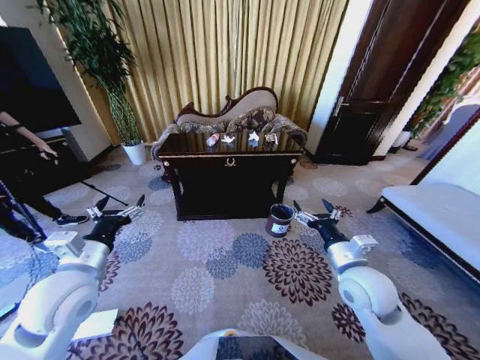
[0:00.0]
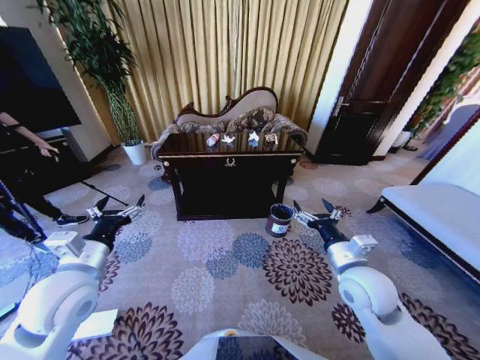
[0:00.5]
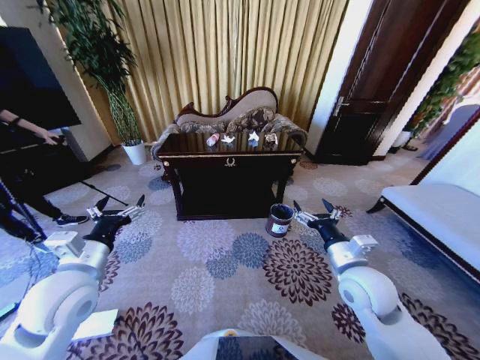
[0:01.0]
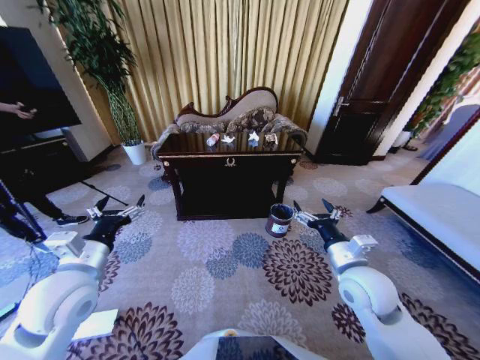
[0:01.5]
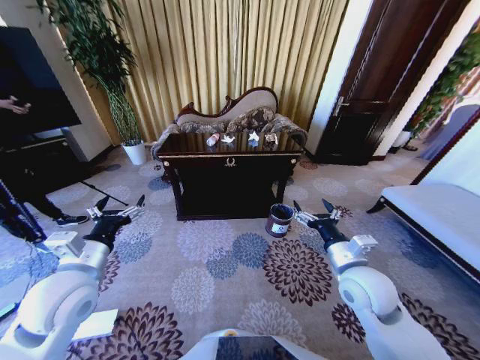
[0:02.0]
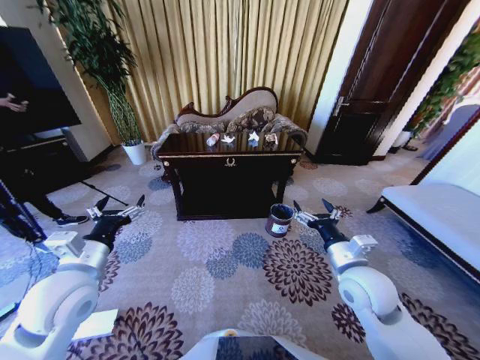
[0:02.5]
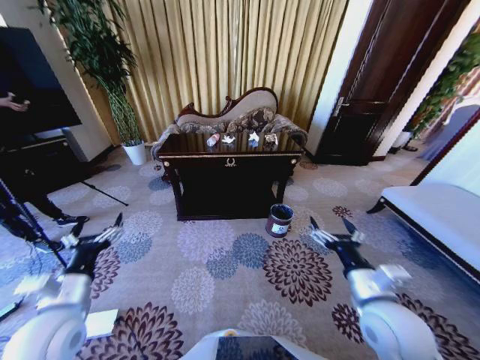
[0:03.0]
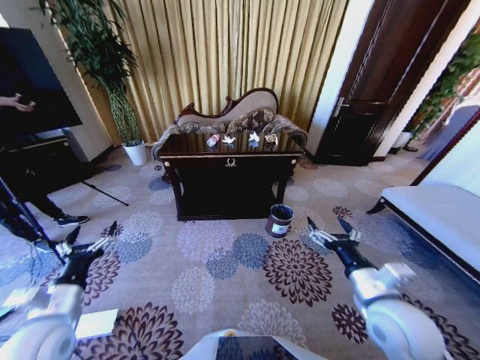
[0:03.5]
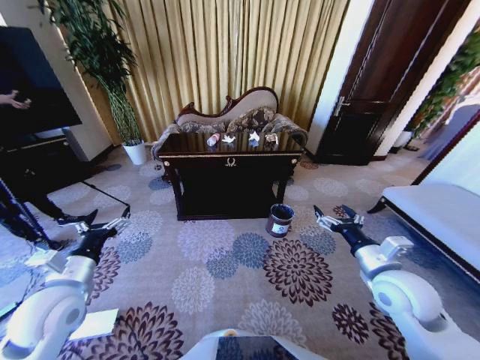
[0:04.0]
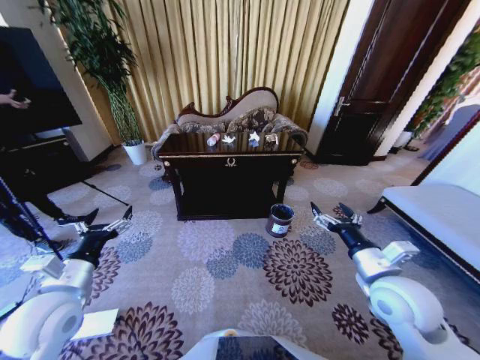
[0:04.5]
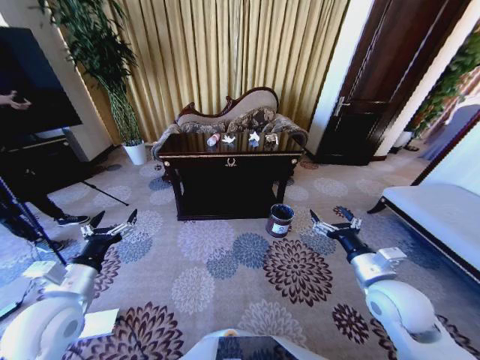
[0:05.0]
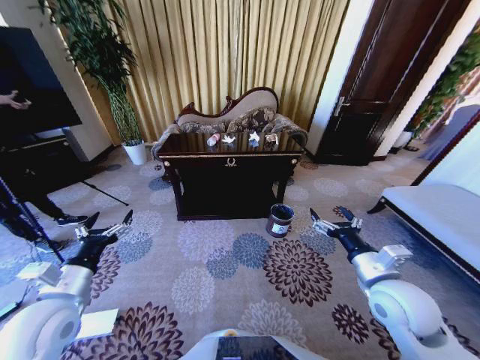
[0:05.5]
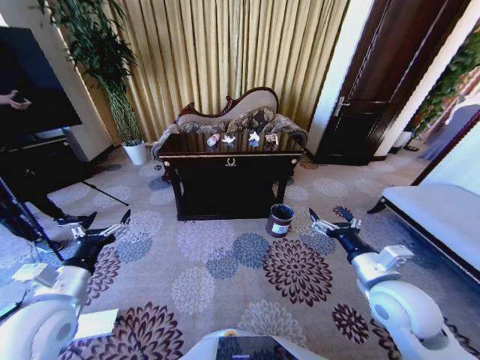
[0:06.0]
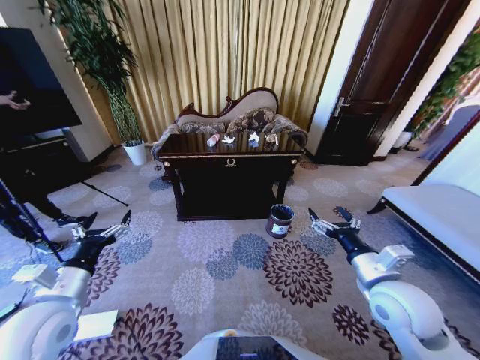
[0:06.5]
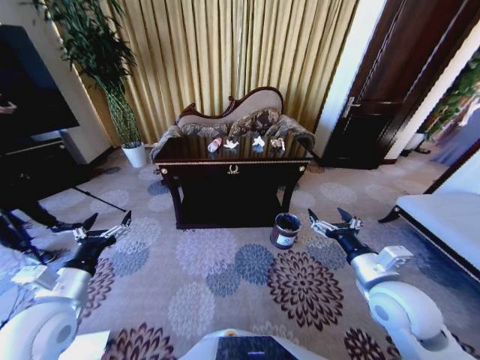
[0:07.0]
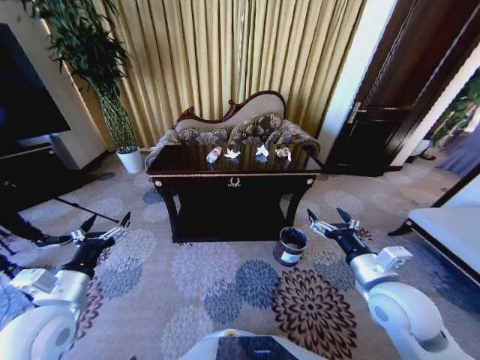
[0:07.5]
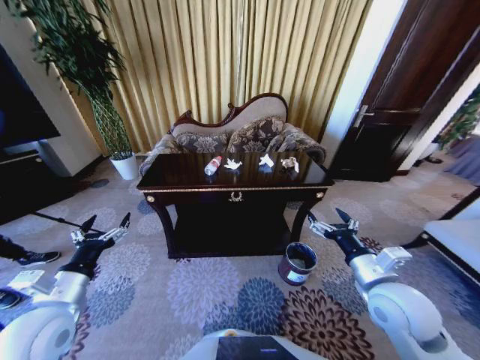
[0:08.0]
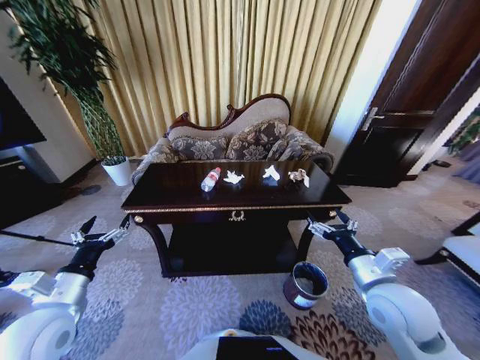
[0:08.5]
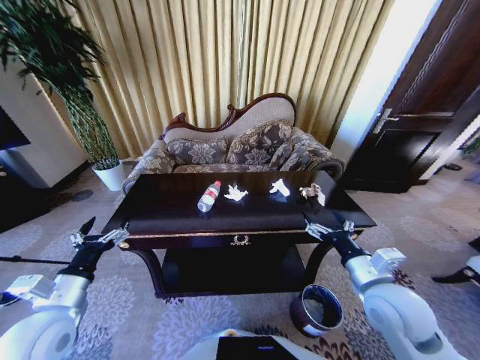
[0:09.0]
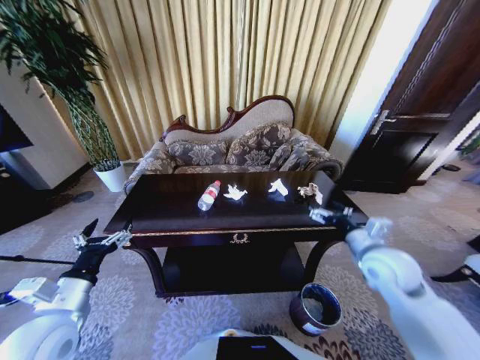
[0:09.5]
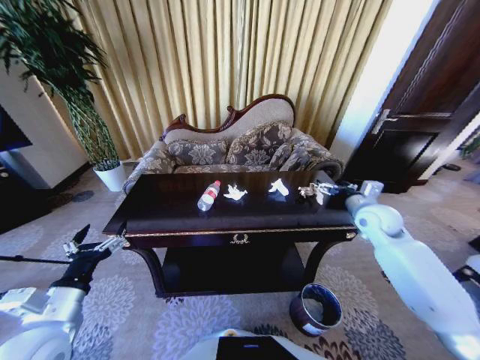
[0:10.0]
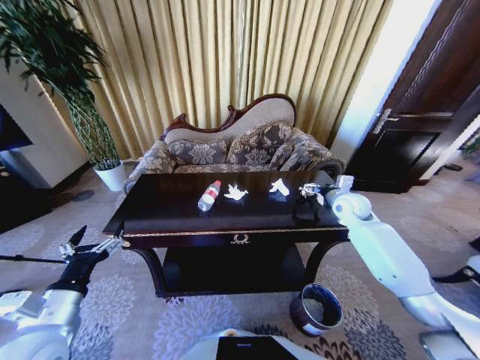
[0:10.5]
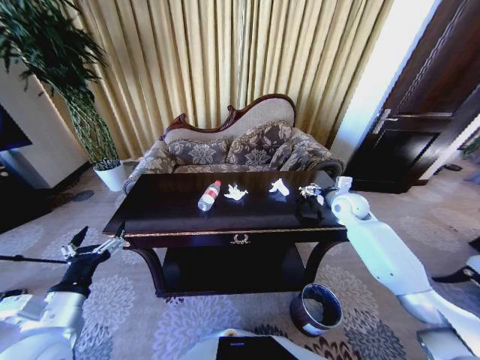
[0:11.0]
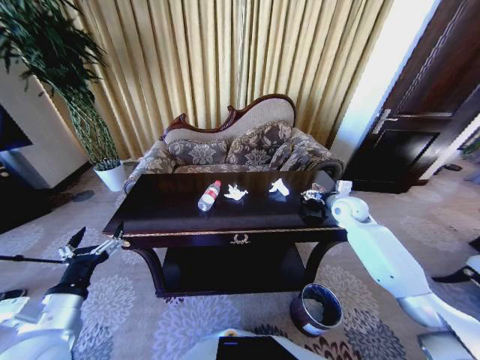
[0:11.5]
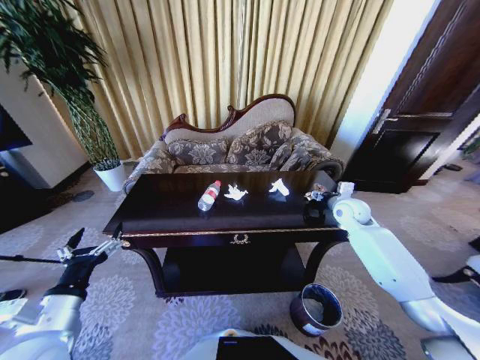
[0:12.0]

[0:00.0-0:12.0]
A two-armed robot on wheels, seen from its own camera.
Task of the whole recording: Move to the front of the table and place the trash on the table into the trash bin.
2.0 to 4.0 s: The right gripper goes about 5 cm to the right, and goes backward and returns, some 10 cm each way.
4.0 to 6.0 s: The grippers stay close to where they were, moving slightly.
8.0 to 10.0 s: The right gripper is displaced forward and to the right by some 25 cm.
10.0 to 12.0 s: The right gripper moves forward, approximately 5 cm.

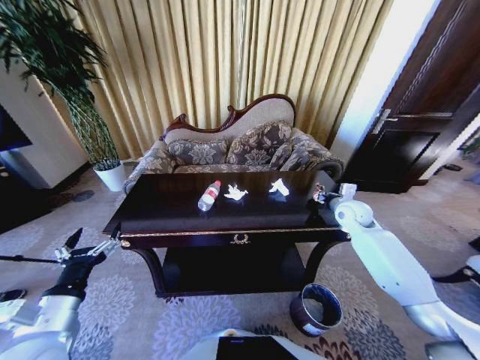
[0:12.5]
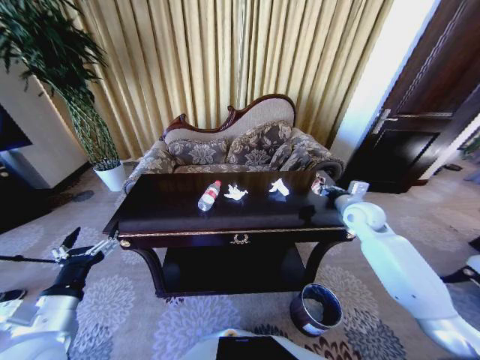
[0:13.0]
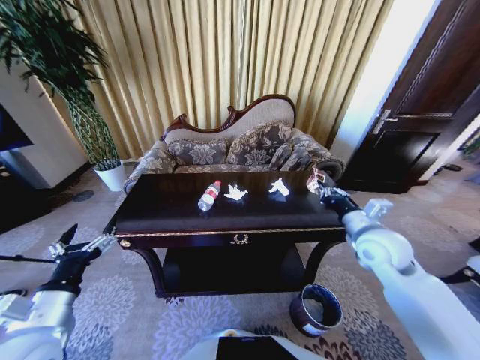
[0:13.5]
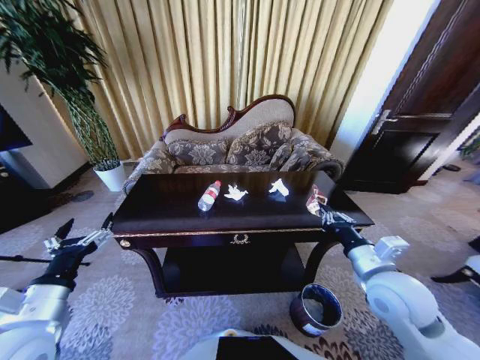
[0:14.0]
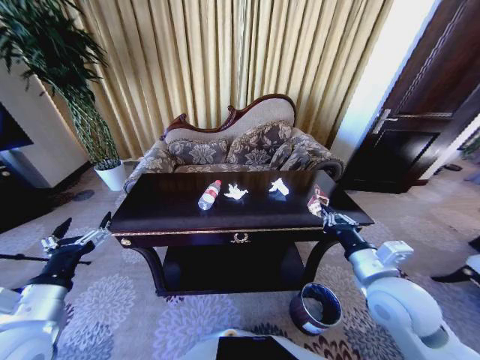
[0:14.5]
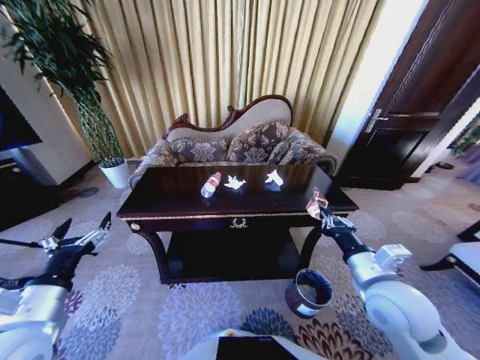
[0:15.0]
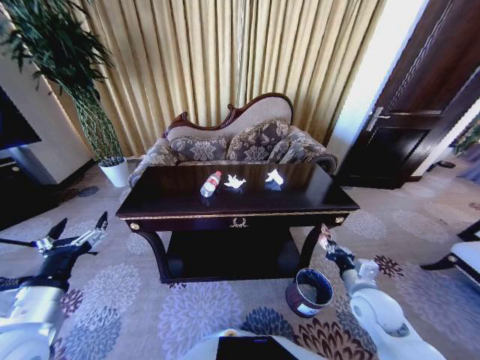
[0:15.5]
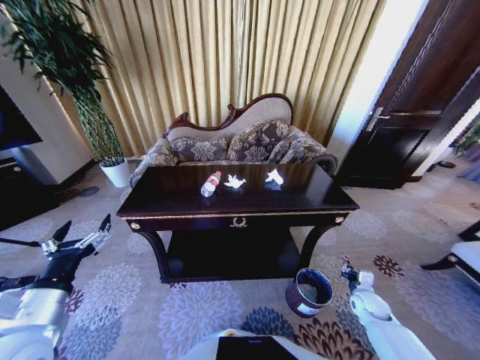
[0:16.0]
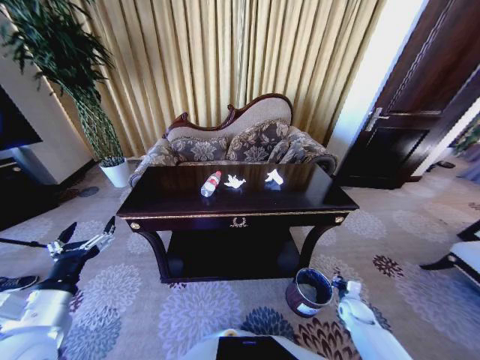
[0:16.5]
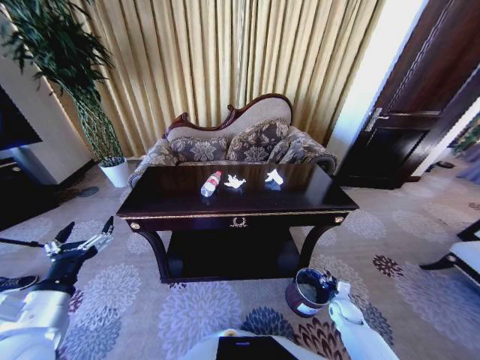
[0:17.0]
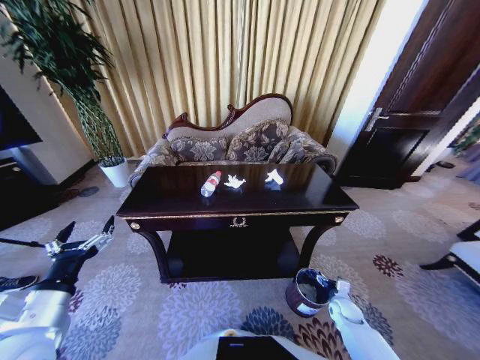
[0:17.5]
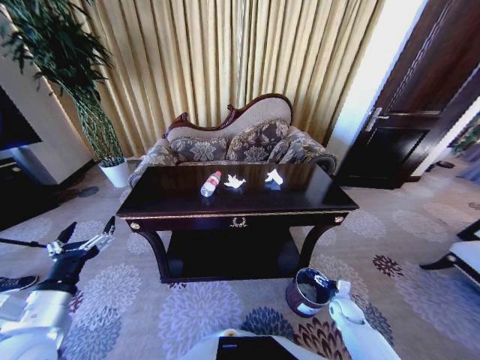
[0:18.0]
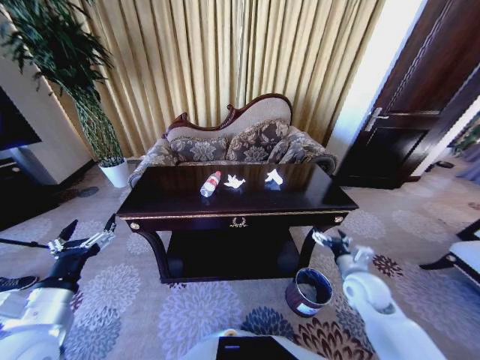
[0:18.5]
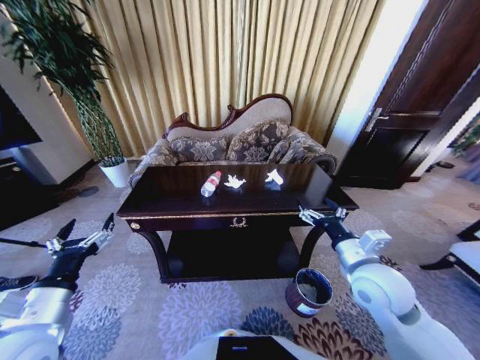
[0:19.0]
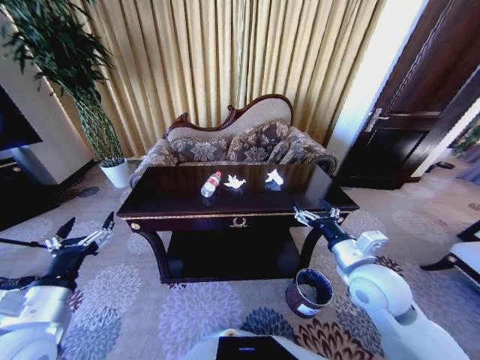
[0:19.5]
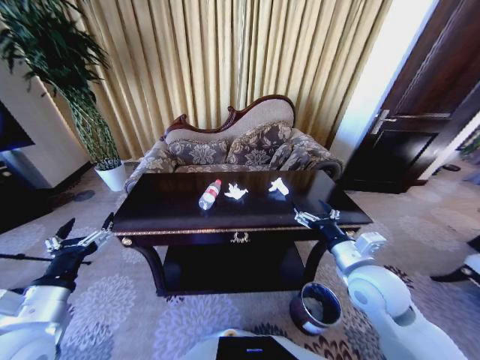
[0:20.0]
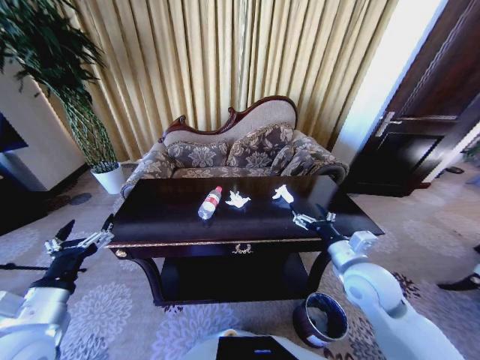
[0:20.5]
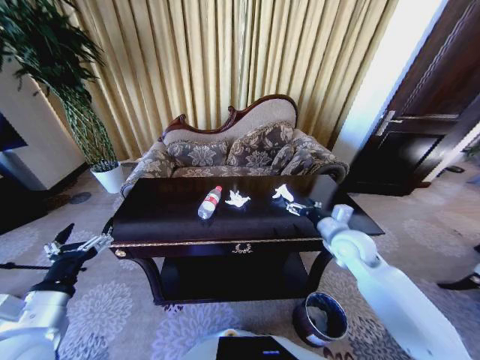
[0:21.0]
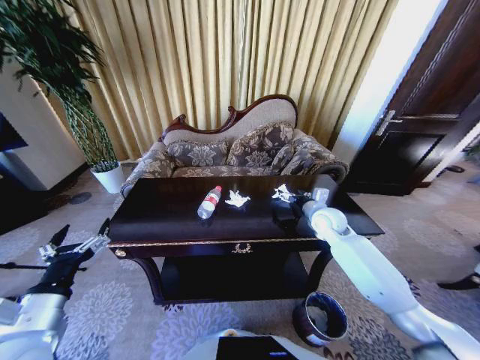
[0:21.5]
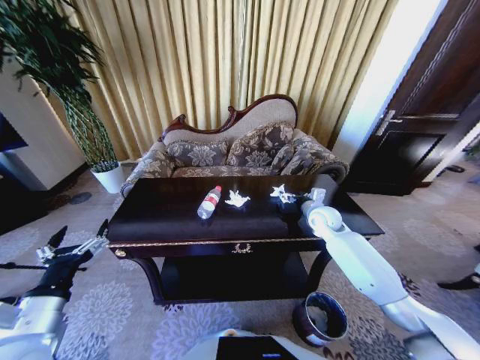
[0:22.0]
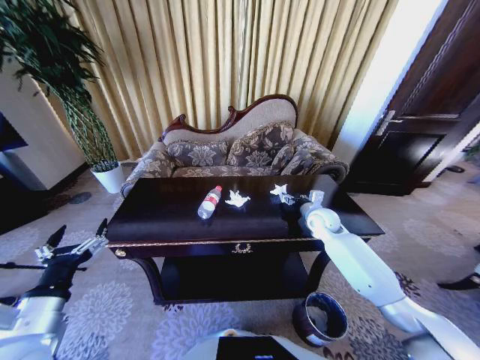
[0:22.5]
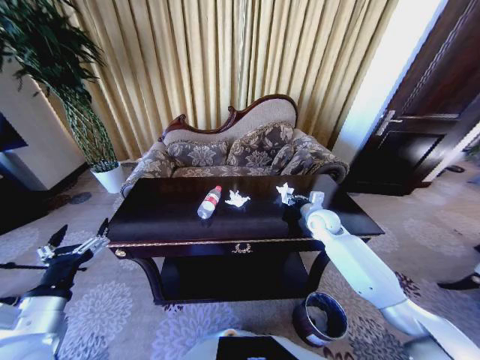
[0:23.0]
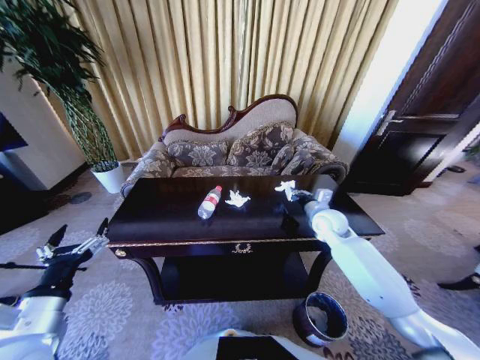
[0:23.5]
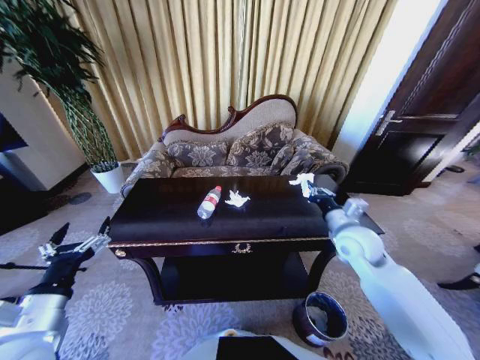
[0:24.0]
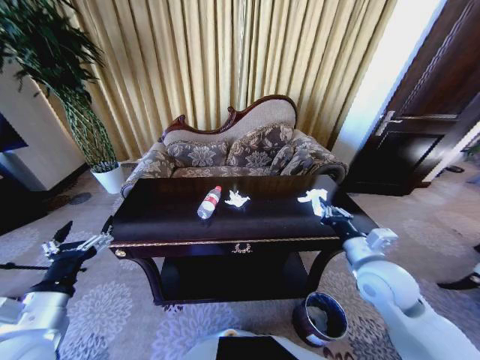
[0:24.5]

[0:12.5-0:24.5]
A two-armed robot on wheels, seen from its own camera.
Task of the whole recording: Move to the front of the table and place the trash on the table into the trash bin.
12.5 to 14.5 s: The right gripper travels backward by some 25 cm.
14.5 to 16.5 s: The right gripper travels downward and to the right by some 40 cm.
16.5 to 18.5 s: The right gripper goes about 25 cm upward, and opens up.
18.5 to 20.5 s: The right gripper is displaced upward and to the left by approximately 10 cm.
20.5 to 22.5 s: The right gripper is displaced forward by approximately 20 cm.
22.5 to 24.5 s: The right gripper heads backward, covering roughly 20 cm, and closes.

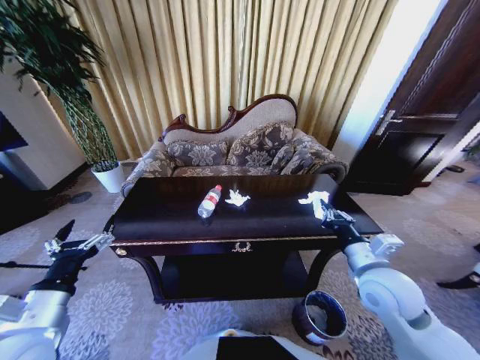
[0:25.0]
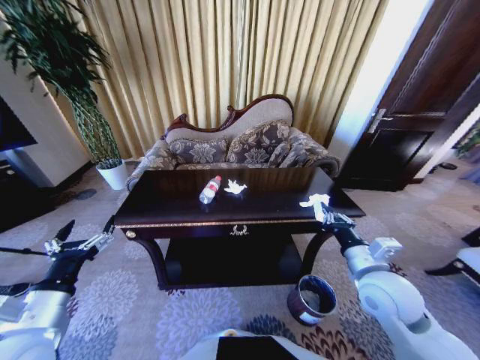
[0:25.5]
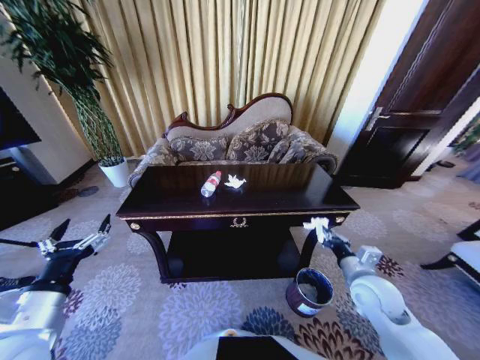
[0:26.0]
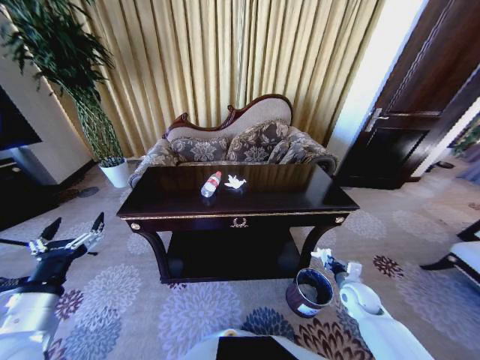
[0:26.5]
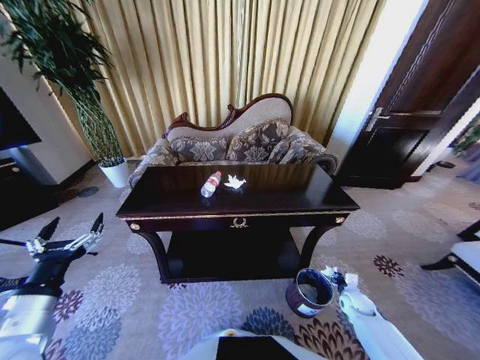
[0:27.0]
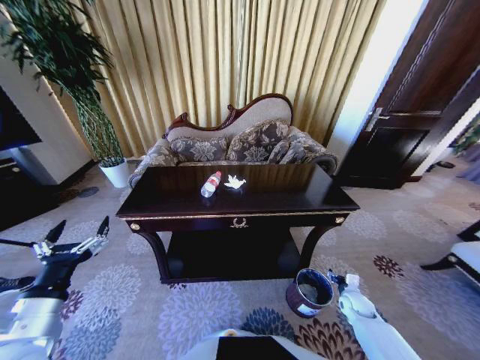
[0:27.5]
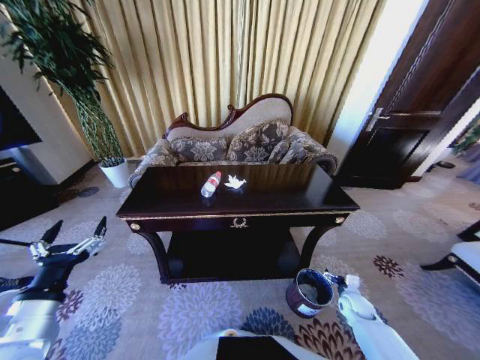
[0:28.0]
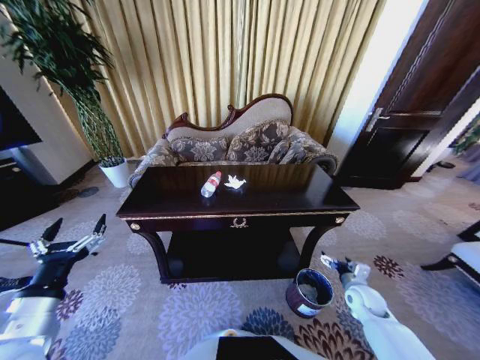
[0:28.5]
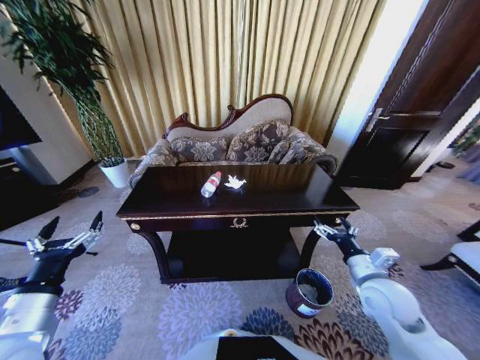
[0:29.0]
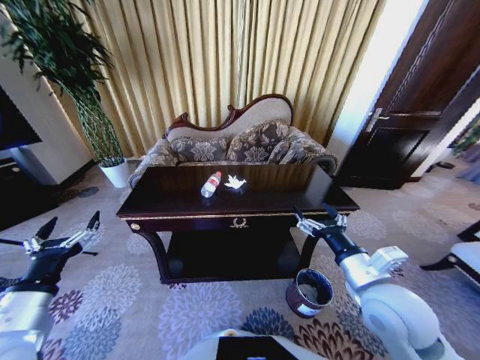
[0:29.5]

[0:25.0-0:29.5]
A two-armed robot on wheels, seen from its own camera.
Task of the whole recording: Move to the front of the table and place the trash on the table into the trash bin.
25.0 to 27.0 s: The right gripper heads downward and to the right, covering roughly 35 cm.
27.0 to 29.5 s: The right gripper moves upward and to the left, some 40 cm, and opens its fingers.
